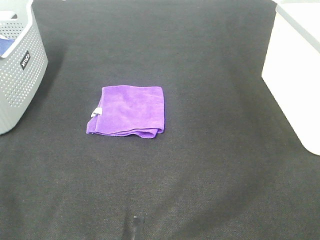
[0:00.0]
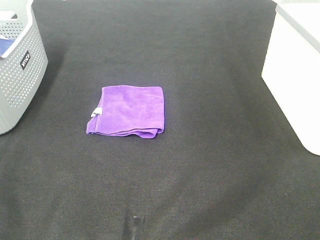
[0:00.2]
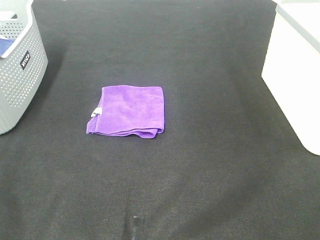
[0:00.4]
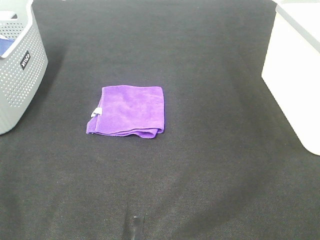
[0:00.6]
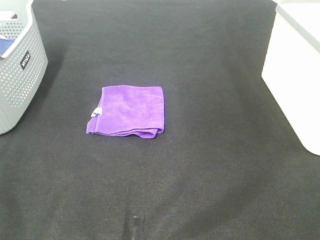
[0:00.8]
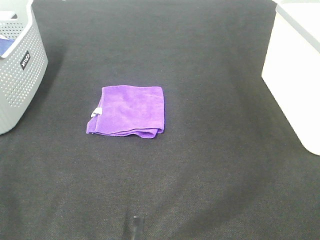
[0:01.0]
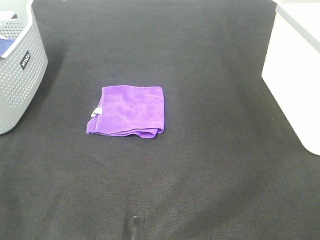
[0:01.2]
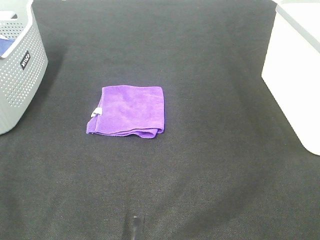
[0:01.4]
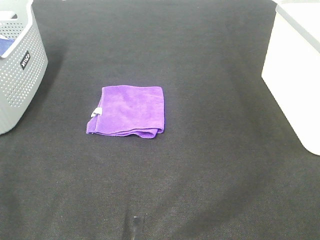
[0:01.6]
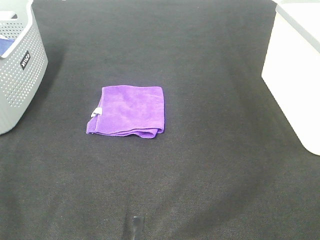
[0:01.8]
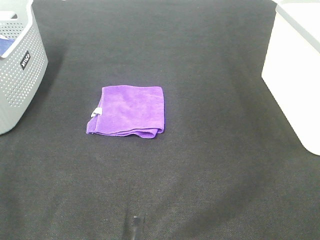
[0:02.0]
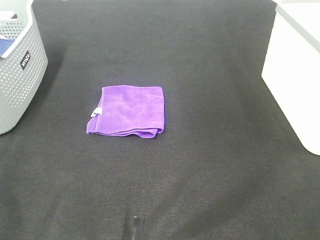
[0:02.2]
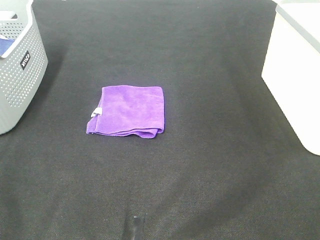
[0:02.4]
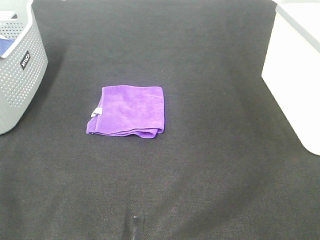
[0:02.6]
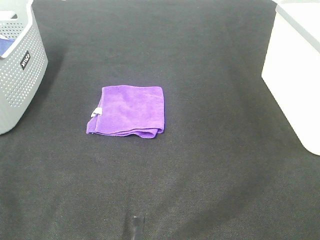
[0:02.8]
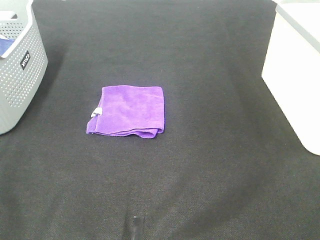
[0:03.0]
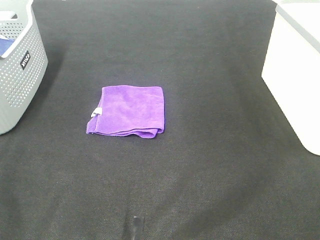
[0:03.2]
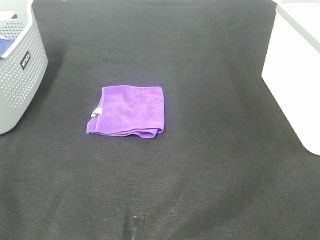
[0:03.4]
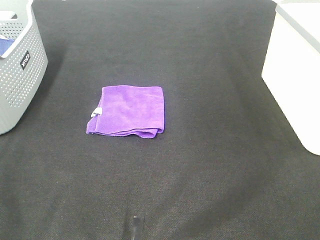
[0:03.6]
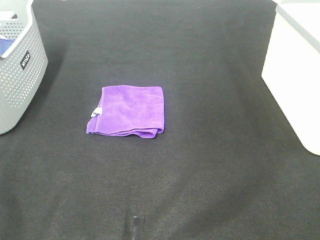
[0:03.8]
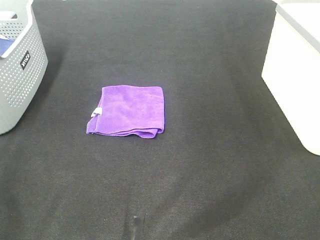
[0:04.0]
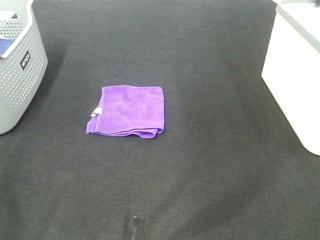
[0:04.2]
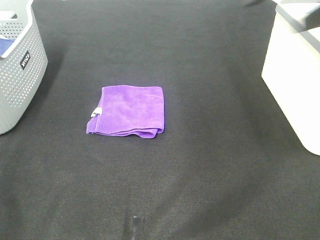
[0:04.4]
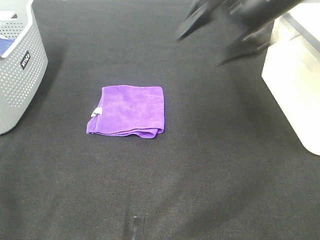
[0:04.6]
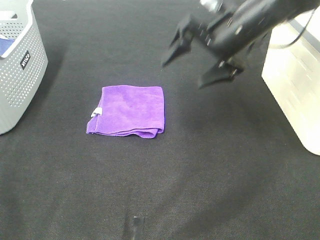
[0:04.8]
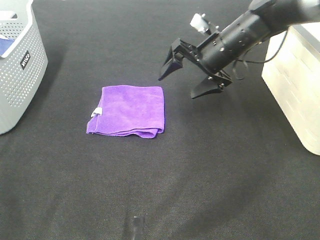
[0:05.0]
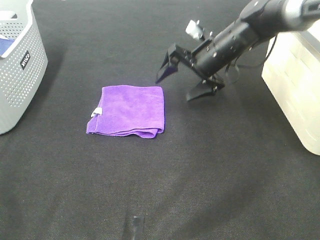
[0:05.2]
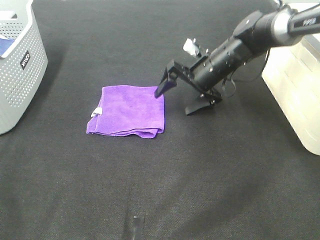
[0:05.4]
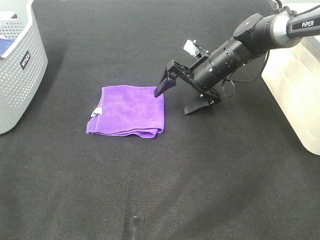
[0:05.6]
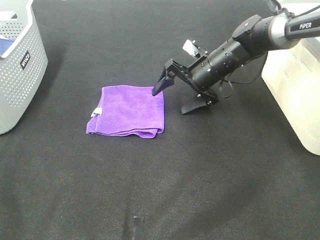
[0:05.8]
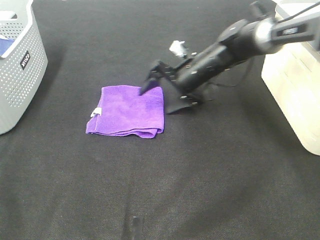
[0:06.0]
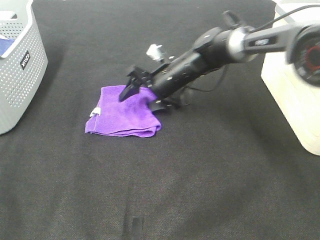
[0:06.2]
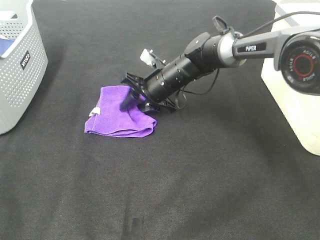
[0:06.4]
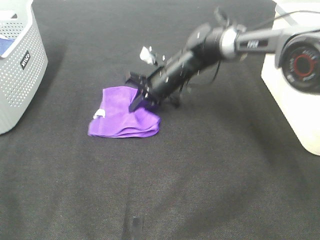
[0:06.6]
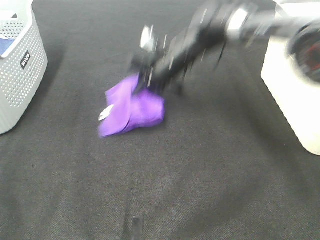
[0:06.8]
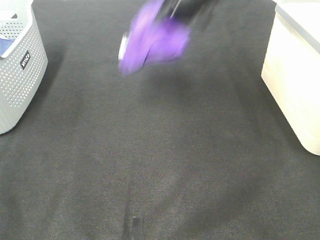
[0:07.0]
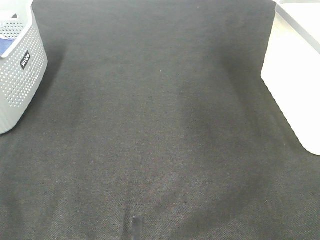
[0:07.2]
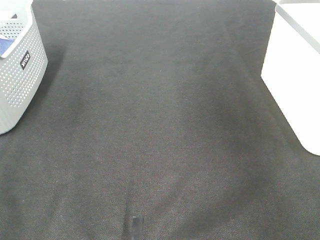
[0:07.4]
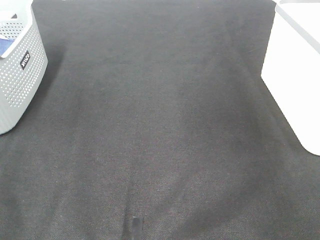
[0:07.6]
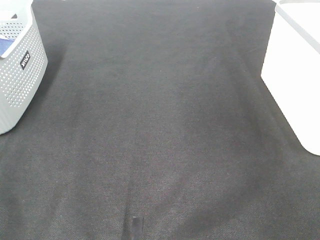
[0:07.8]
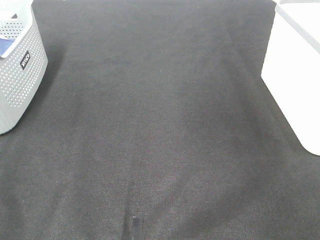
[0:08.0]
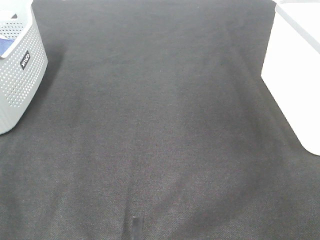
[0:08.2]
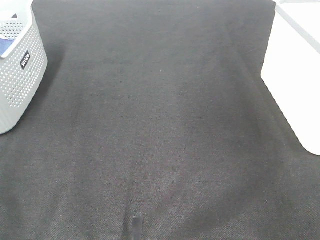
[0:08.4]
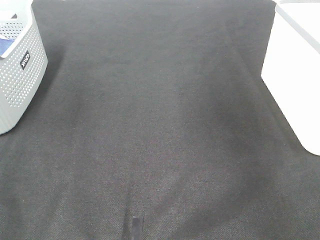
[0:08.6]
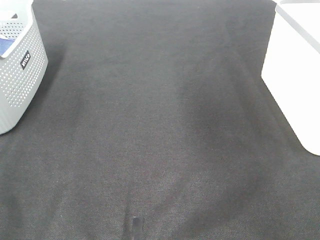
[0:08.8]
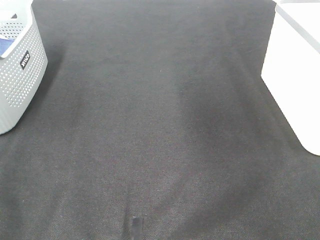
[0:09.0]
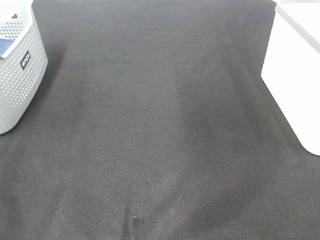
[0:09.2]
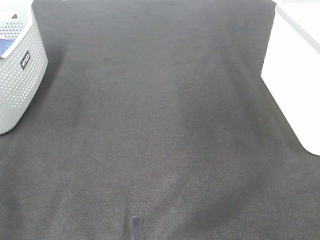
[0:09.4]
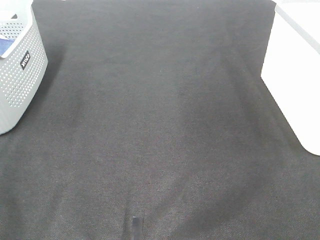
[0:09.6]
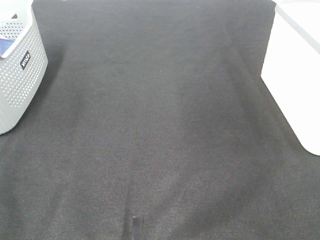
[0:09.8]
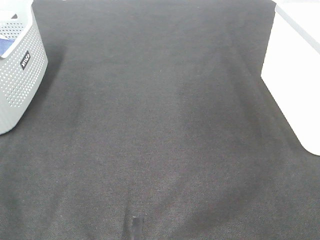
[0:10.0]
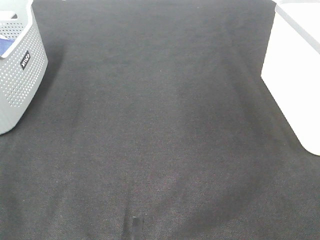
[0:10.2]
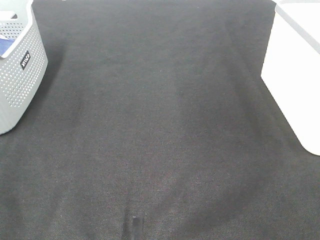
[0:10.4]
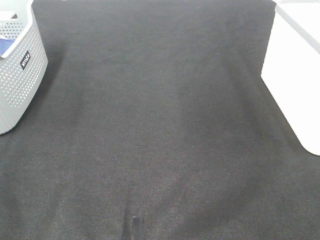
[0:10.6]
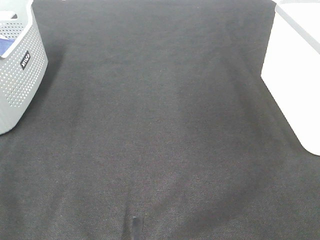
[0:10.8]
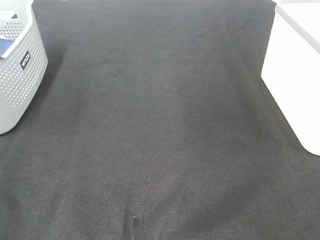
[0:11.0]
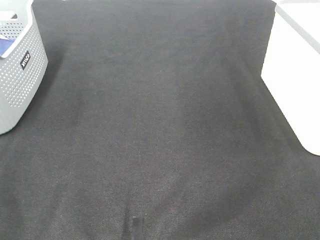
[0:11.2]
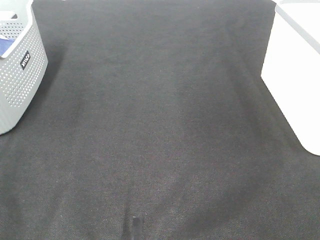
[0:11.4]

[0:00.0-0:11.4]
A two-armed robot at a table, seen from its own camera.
Step, 0:00.0 to 0:06.4: Right hand: grab the folded purple towel.
Step, 0:06.6 to 0:08.0: Right hand: place the purple towel in right basket.
0:00.0 to 0:02.8: The two grippers keep their place.
0:04.2 to 0:05.6: The right gripper is displaced downward, forward and to the left by approximately 40 cm.
0:05.6 to 0:07.2: The right gripper heads upward, covering approximately 30 cm, and closes.
0:07.2 to 0:08.6: The right gripper moves to the right, about 10 cm, and opens up.

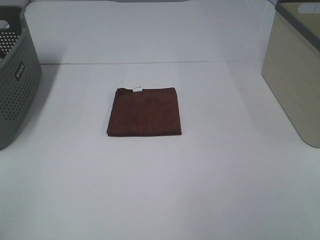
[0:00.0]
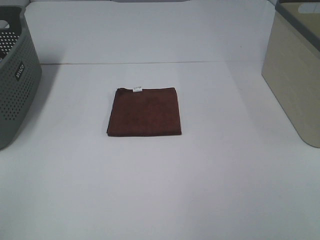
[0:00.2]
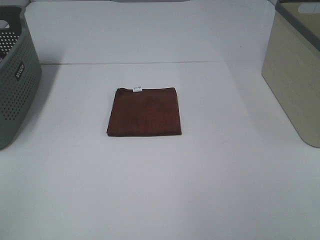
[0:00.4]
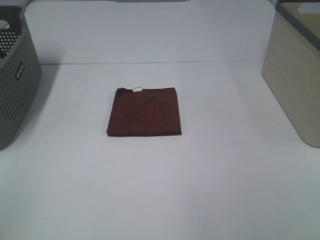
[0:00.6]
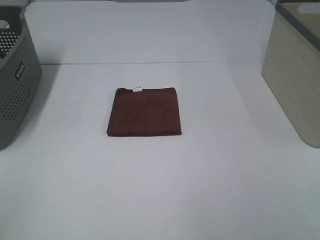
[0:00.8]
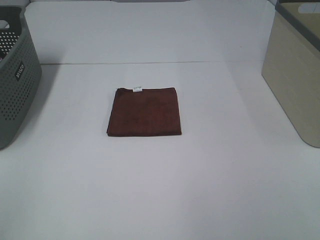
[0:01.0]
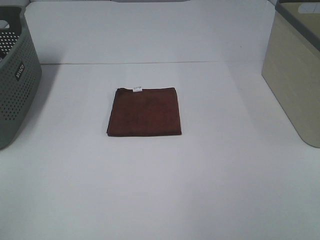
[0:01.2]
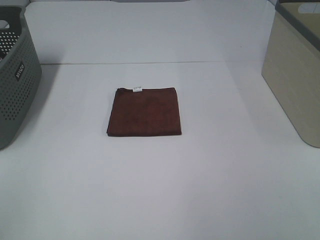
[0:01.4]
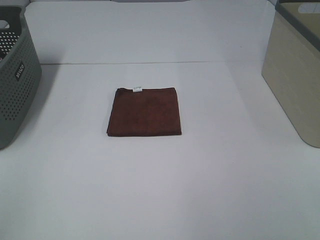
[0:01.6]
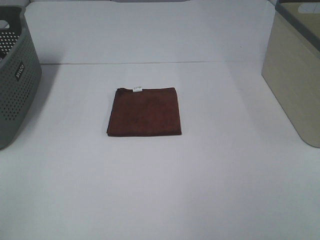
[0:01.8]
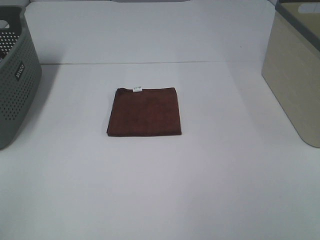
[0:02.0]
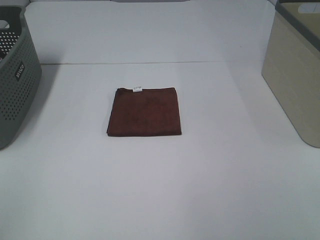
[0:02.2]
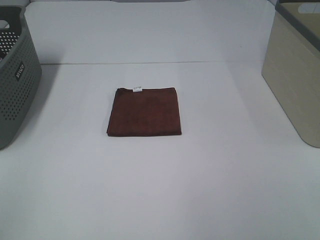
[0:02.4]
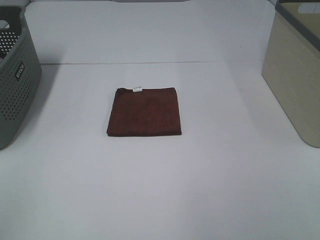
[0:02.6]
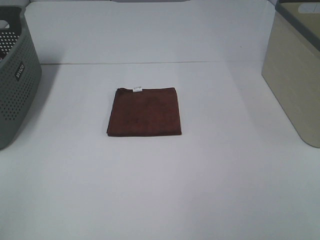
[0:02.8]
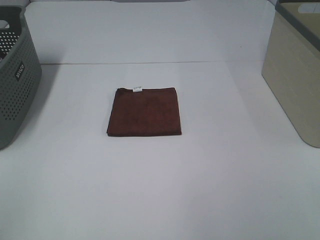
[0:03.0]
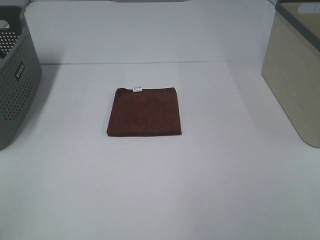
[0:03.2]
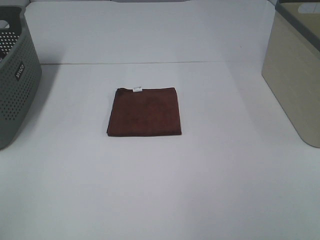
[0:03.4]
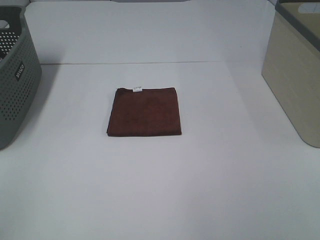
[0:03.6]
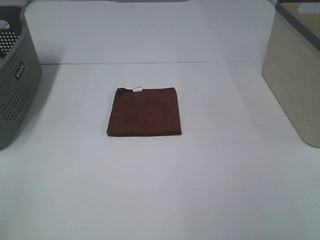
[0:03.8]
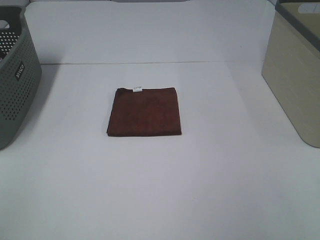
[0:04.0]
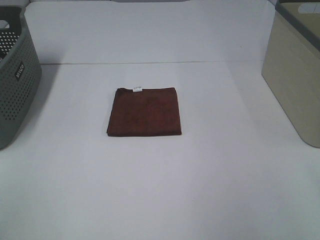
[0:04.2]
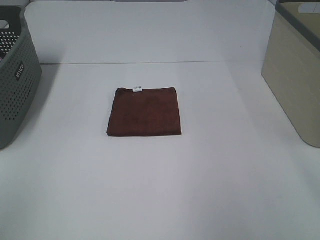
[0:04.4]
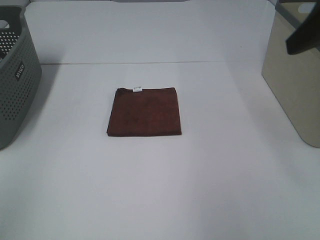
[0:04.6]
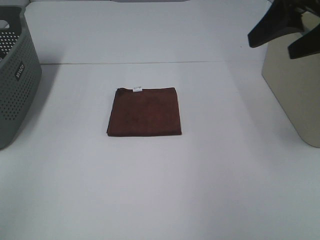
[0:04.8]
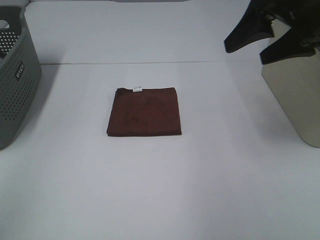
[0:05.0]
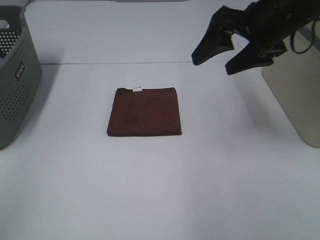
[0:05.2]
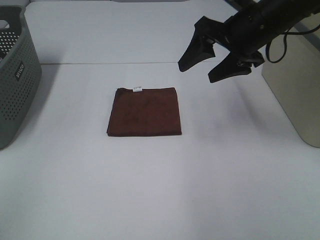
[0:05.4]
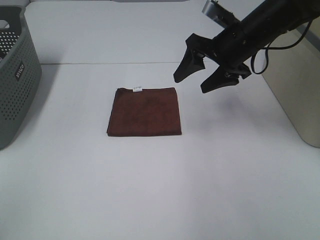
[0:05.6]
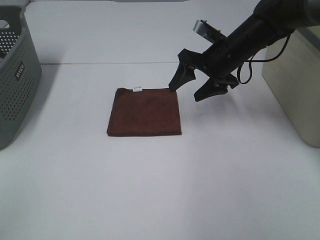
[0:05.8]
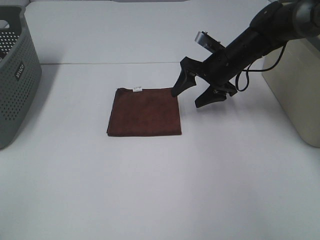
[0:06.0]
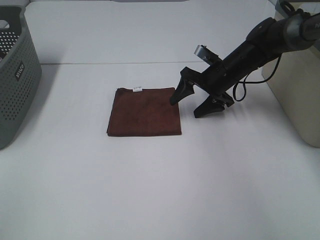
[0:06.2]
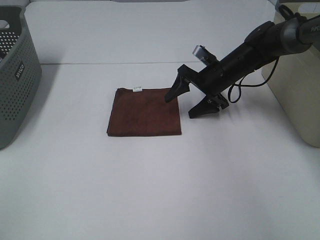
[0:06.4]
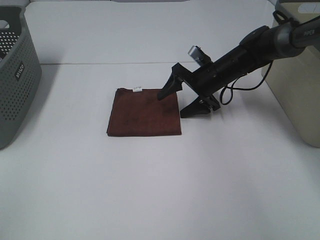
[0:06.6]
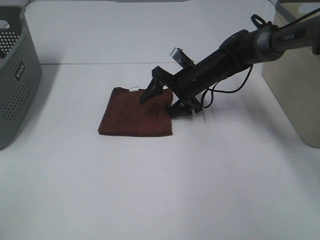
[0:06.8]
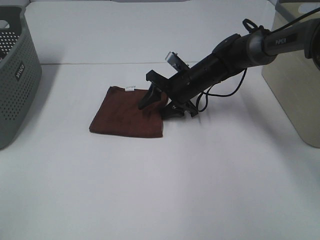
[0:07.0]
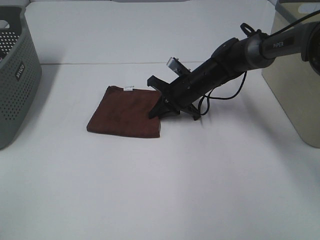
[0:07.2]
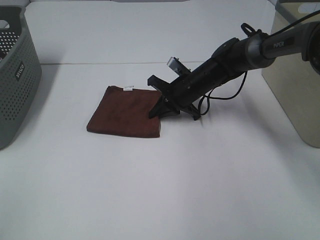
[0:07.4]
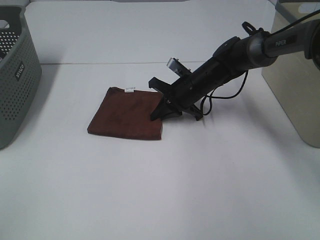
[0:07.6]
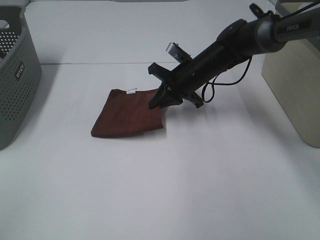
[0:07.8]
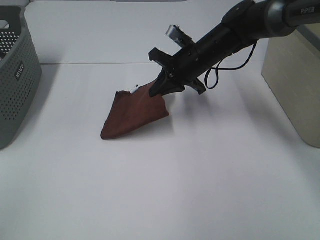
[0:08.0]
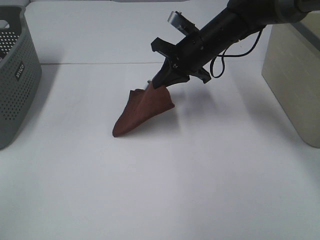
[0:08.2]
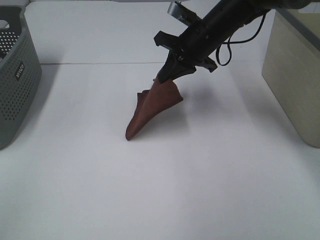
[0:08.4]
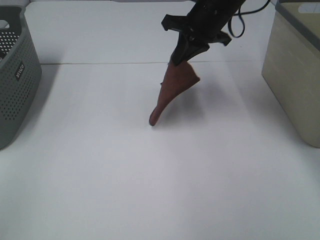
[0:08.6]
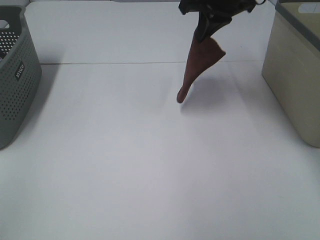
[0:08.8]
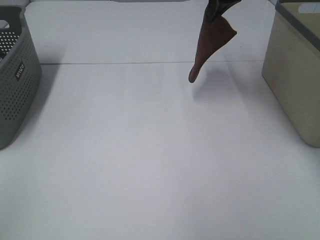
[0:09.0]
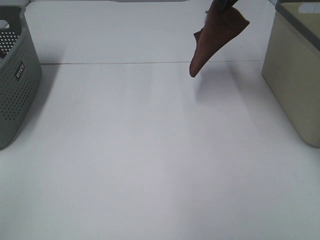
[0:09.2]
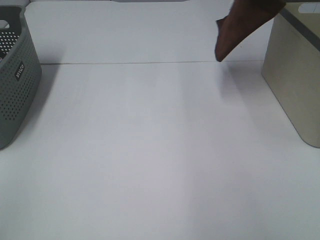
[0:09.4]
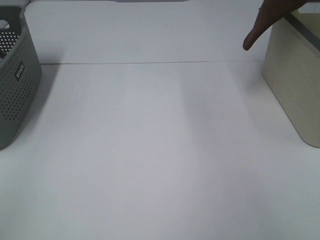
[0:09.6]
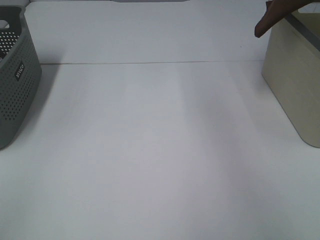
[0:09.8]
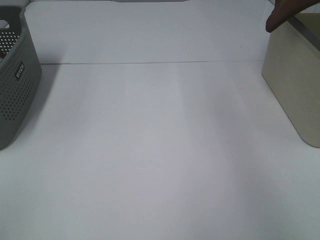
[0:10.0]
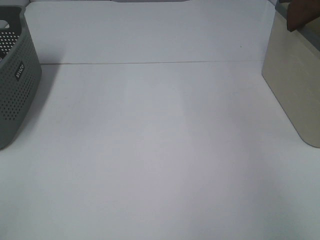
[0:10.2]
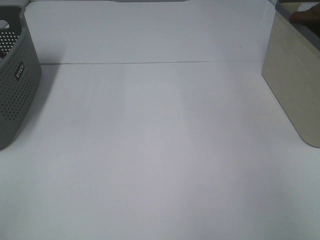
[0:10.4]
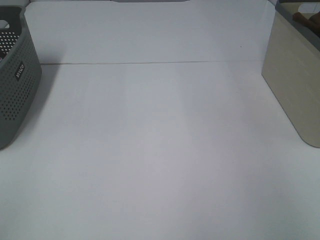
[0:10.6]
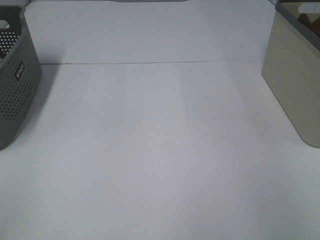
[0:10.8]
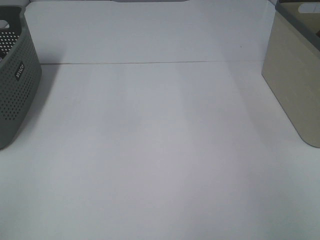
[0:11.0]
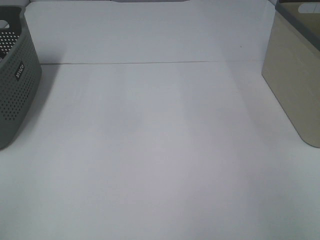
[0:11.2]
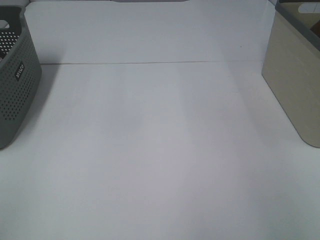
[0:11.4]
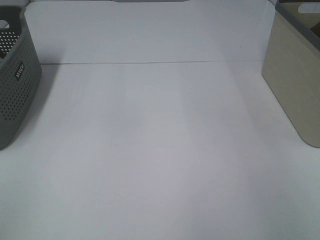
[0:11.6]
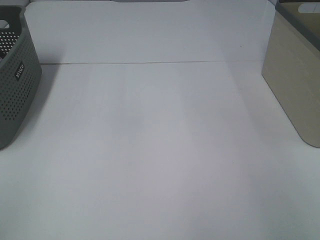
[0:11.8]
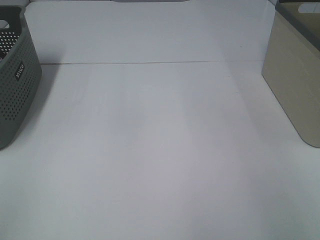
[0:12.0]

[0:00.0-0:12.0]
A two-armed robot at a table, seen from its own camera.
Step, 0:00.0 to 0:07.2: Right hand: grab the folded brown towel.
0:00.0 to 0:03.0: Both grippers stay about where they are.
0:04.4 to 0:06.0: The right gripper heads forward, downward and to the left, covering roughly 35 cm.
0:06.0 to 0:07.6: The right gripper heads to the left and downward, covering about 10 cm, and closes its fingers.
0:07.6 to 0:09.0: The right gripper heads upward, covering some 25 cm.
0:09.0 to 0:10.4: The right gripper goes approximately 30 cm to the right.
0:10.4 to 0:12.0: The right gripper heads downward, covering some 5 cm, and opens up.
